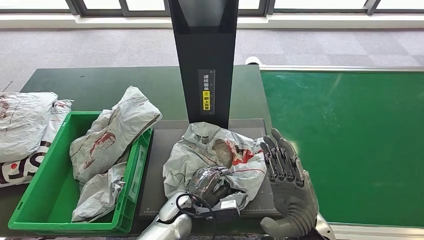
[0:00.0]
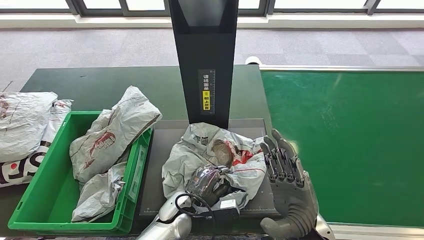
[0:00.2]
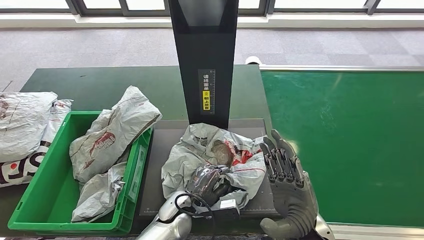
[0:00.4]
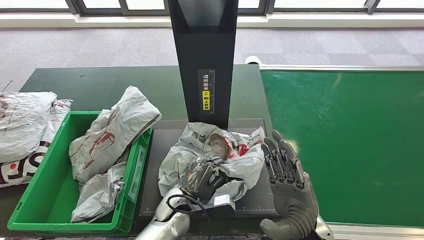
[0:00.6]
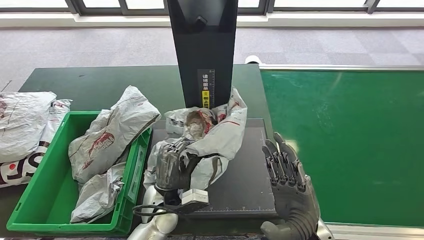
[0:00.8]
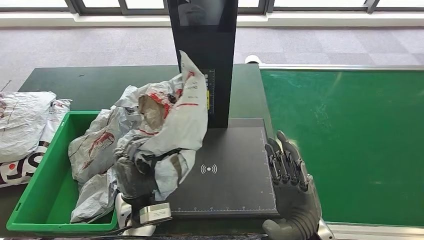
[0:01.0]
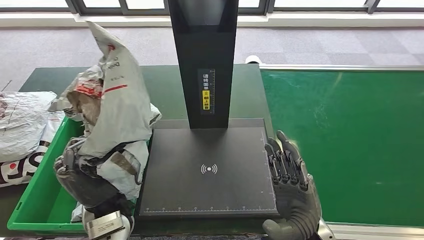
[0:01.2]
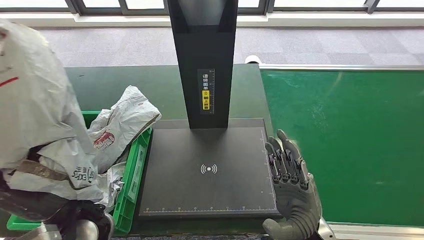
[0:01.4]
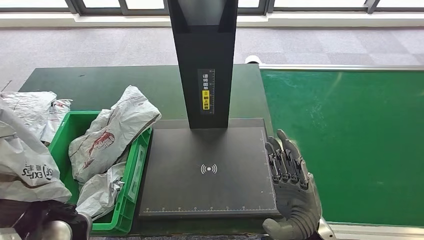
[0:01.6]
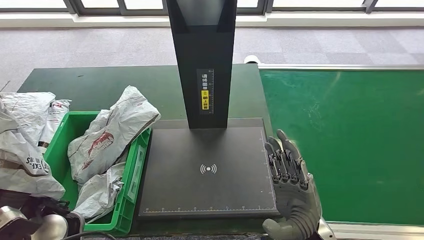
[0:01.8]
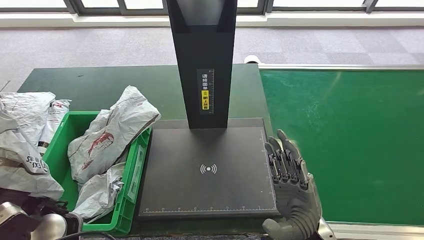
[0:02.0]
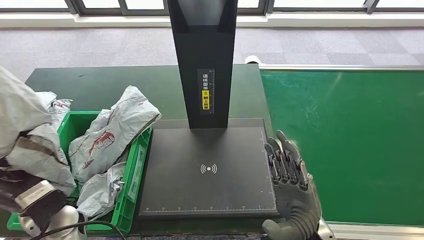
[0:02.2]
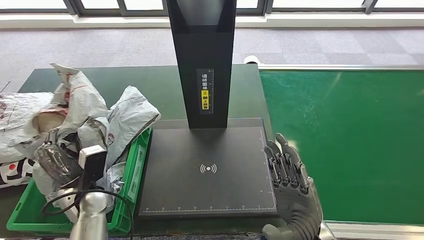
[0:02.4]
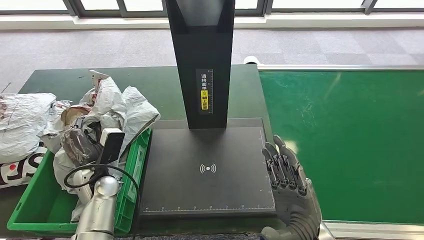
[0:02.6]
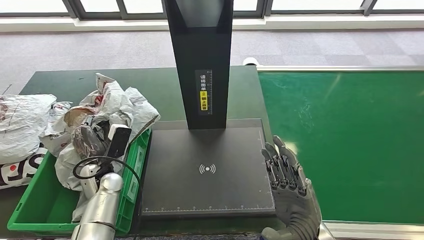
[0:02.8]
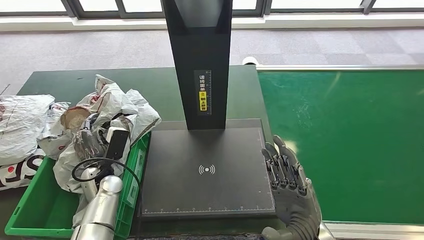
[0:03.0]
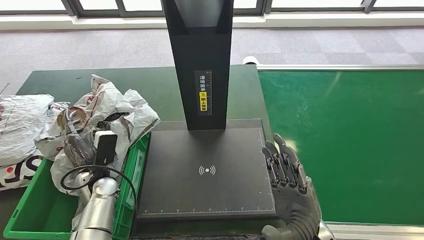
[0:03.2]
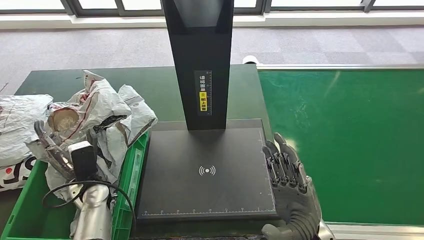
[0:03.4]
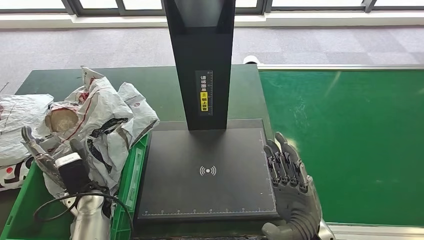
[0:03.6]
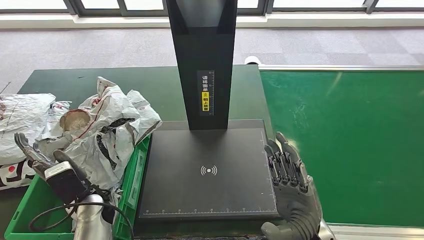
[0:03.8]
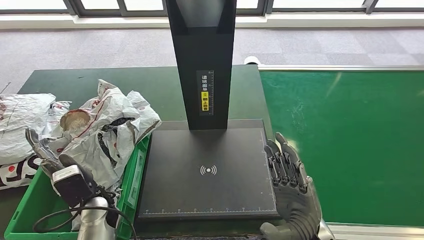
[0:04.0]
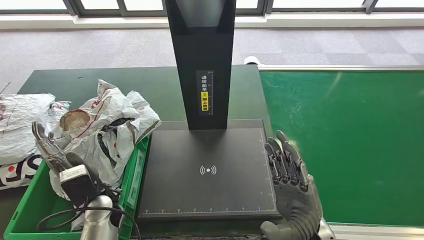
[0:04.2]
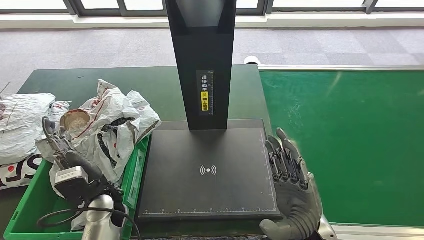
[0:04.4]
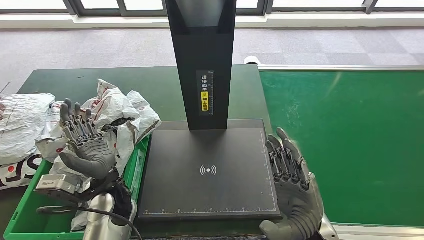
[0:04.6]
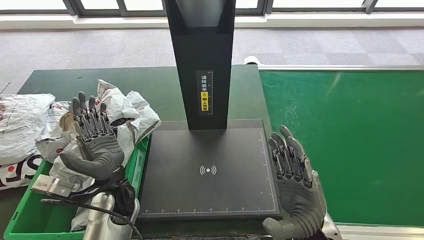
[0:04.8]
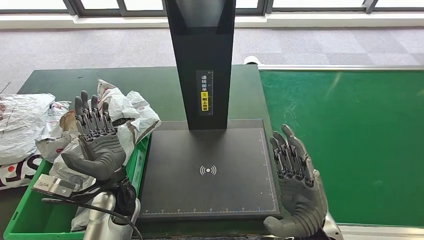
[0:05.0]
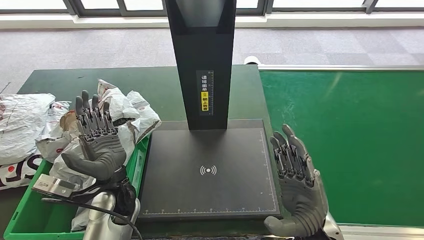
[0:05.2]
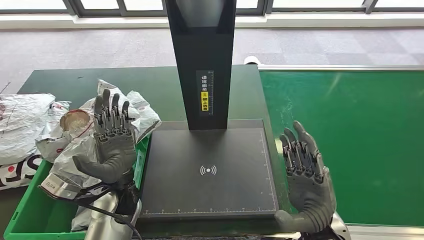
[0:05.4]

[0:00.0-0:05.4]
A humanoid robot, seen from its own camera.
Step, 0:01.8 to 0:05.2: Place the parcel into the delivery box.
0:04.0 to 0:05.4: The left hand travels to the right and upward by about 10 cm.

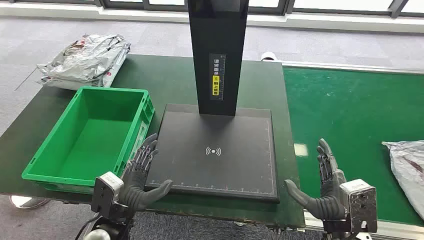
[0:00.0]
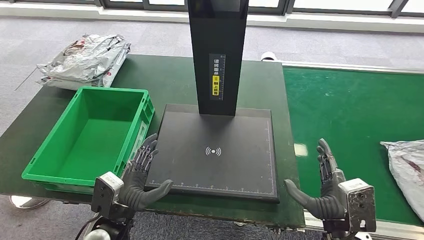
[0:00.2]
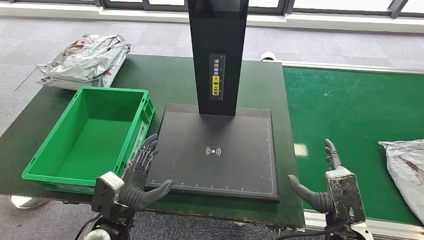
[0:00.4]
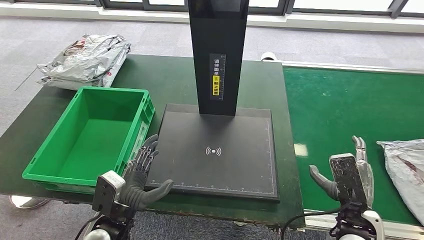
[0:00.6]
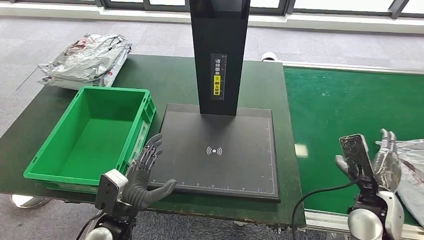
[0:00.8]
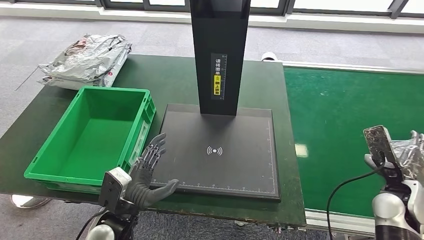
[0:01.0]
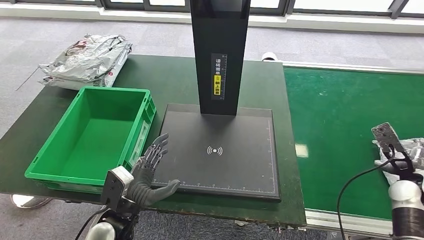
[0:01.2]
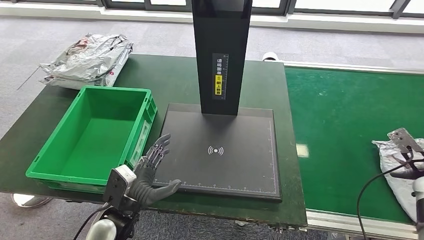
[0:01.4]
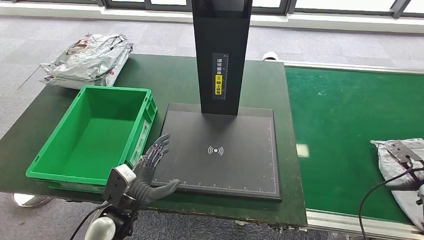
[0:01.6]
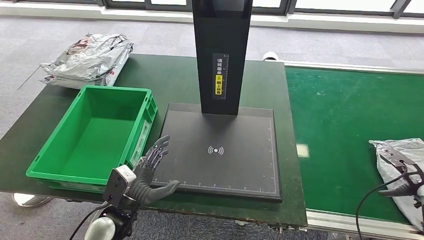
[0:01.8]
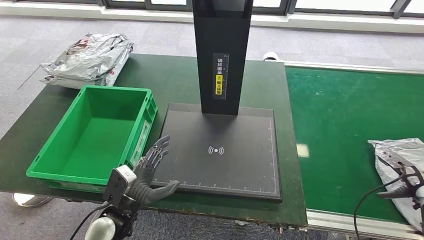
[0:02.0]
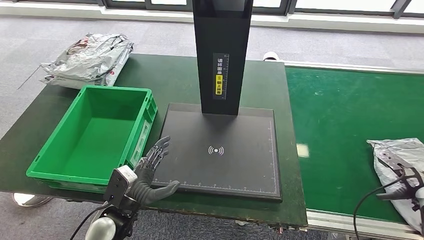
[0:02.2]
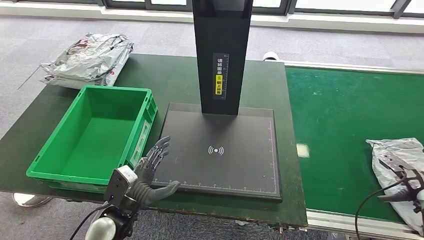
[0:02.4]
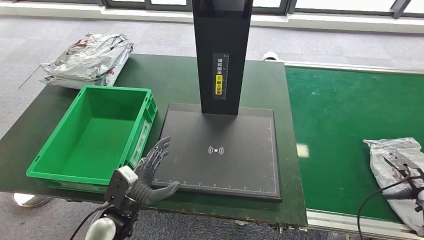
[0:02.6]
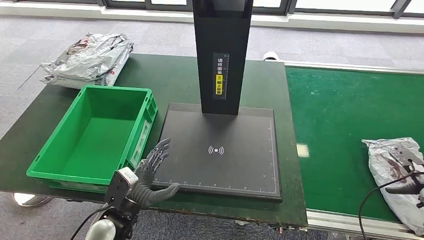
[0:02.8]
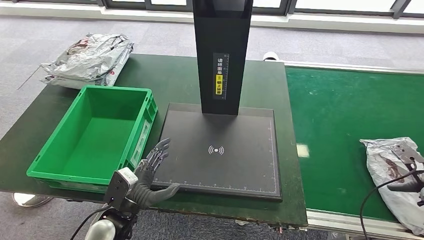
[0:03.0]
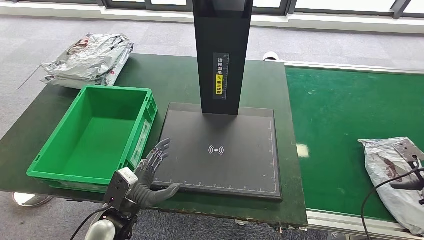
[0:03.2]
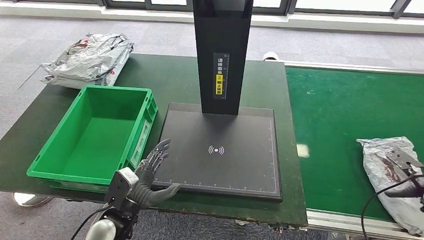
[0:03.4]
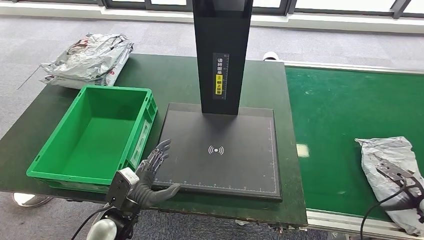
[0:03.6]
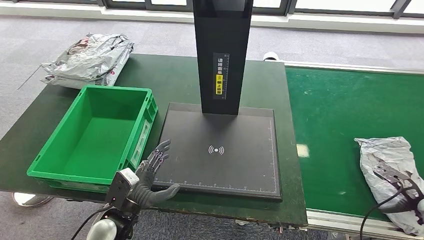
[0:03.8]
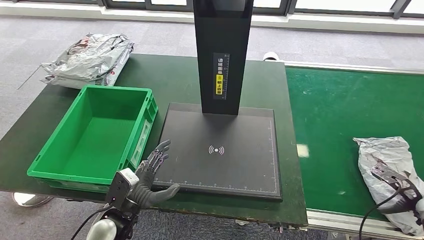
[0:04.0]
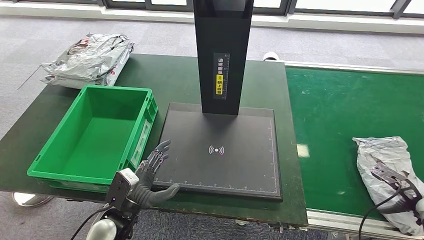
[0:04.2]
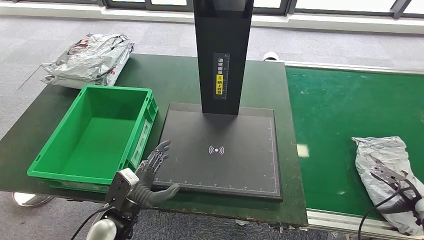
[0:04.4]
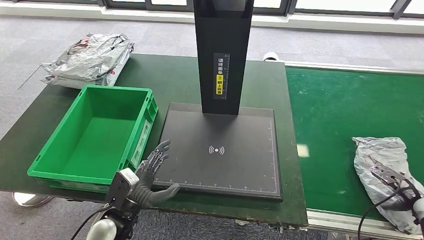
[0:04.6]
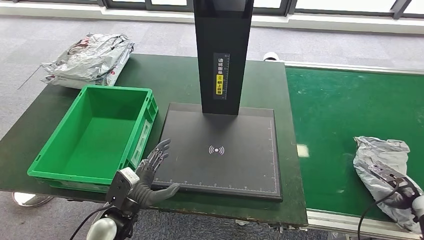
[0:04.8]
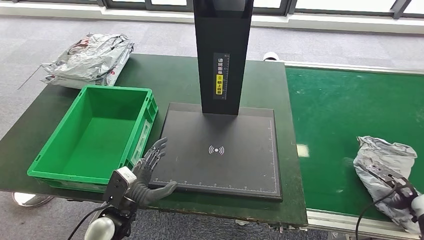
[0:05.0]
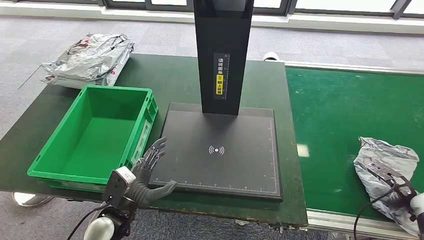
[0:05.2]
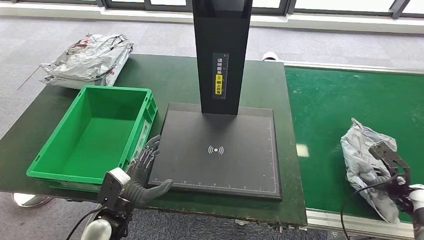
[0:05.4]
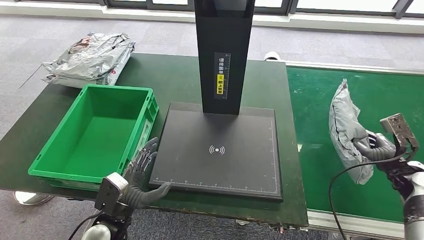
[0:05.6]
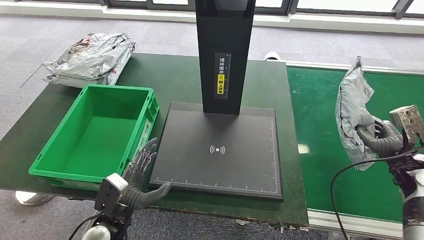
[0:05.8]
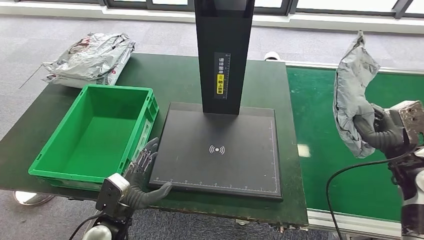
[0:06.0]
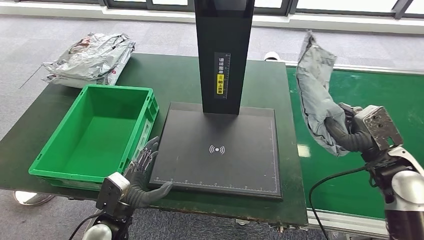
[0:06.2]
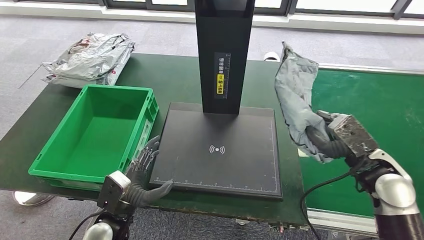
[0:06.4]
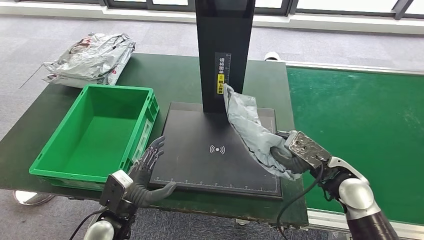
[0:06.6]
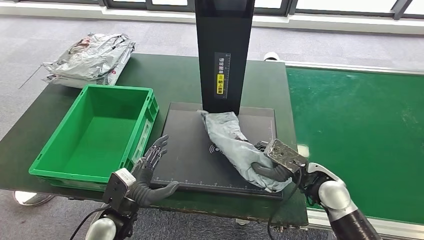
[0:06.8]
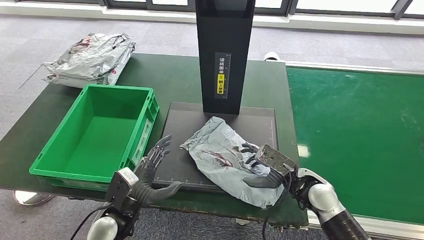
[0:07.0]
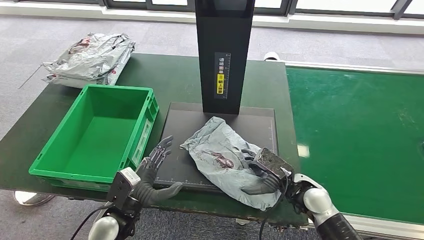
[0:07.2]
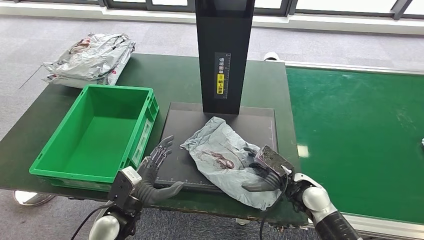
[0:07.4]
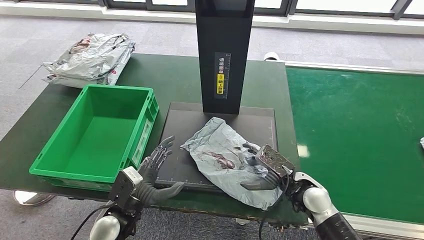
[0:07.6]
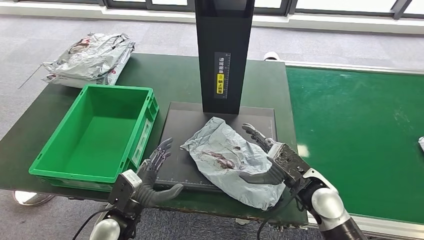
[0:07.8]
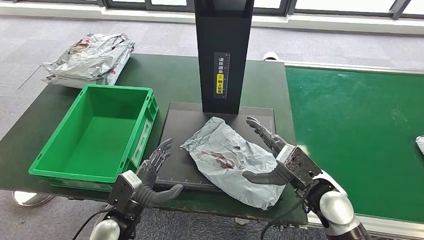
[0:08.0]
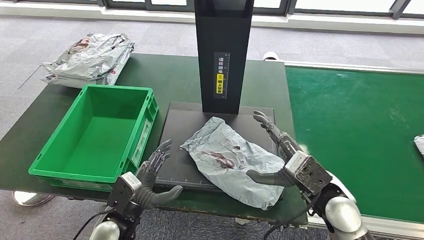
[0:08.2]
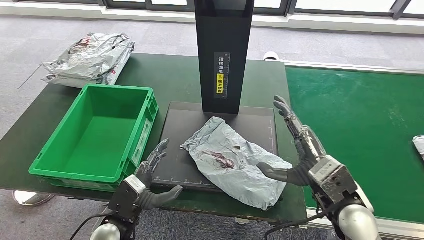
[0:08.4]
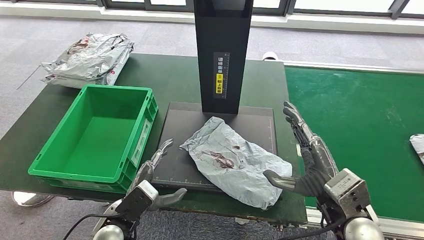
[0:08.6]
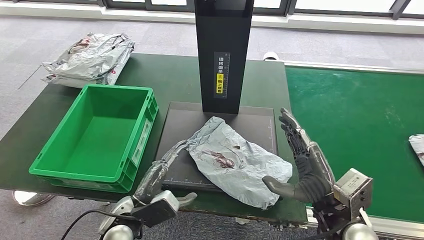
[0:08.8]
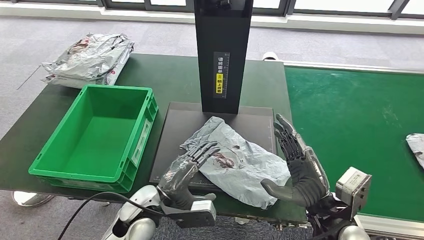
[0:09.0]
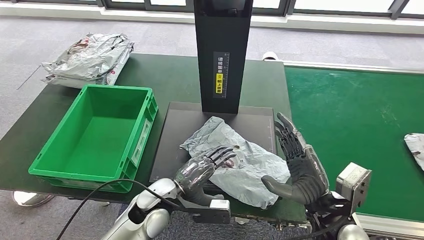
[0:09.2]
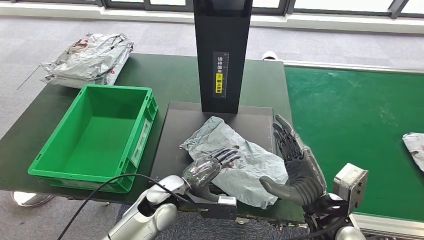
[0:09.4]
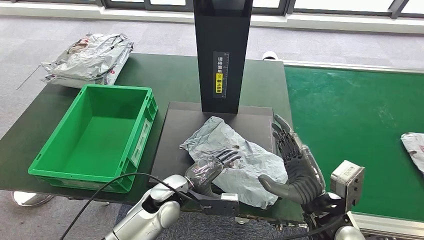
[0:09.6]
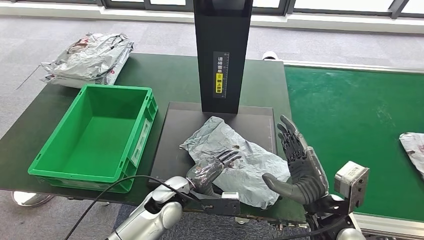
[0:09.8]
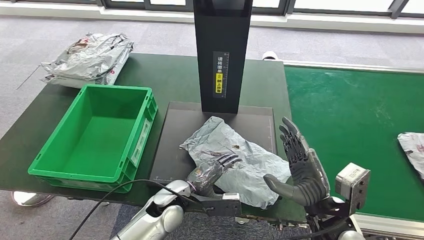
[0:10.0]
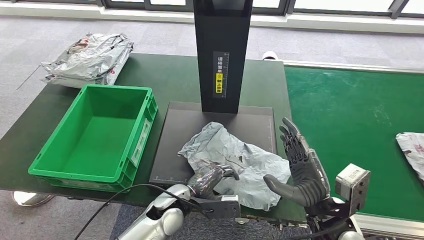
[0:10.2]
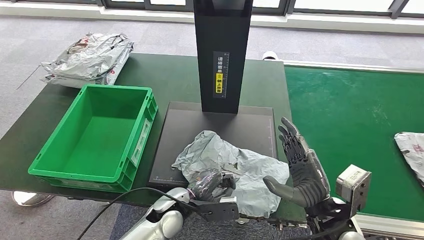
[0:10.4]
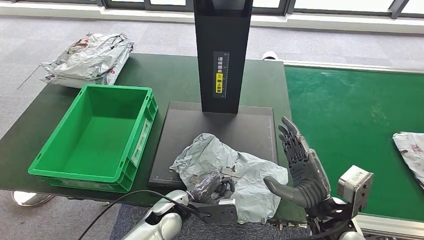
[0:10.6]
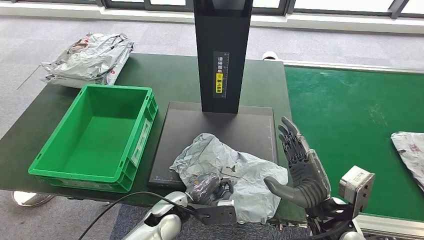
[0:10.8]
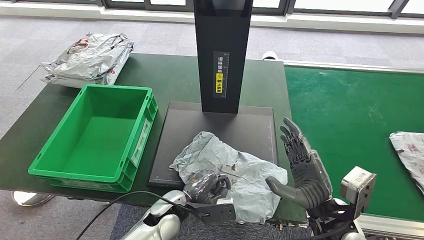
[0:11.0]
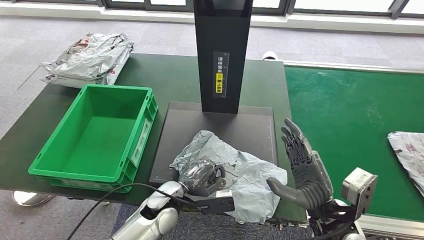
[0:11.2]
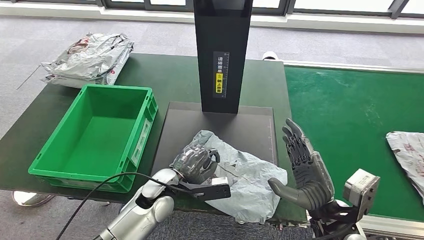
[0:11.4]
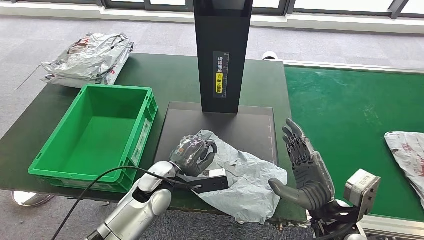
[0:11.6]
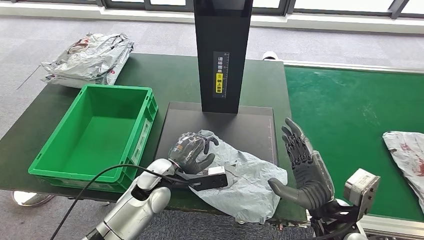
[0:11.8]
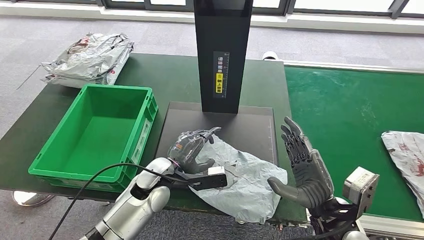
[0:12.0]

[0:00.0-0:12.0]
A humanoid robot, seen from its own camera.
Step, 0:00.0 to 0:06.0: Take the parcel off the conveyor belt.
Step, 0:06.4 to 0:08.6: Place the parcel onto the inbound machine.
0:01.6 to 0:04.4: The hands make only small movements.
0:04.4 to 0:06.0: The right hand moves to the left, upward and forward, about 15 cm.
0:06.0 to 0:07.6: The right hand travels to the left and downward by approximately 25 cm.
0:07.6 to 0:09.0: The right hand goes some 10 cm upward and backward; the left hand moves to the right, approximately 5 cm.
0:09.0 to 0:10.4: The left hand goes some 10 cm downward and to the right.
0:10.4 to 0:12.0: The left hand heads forward and upward, covering some 10 cm.
